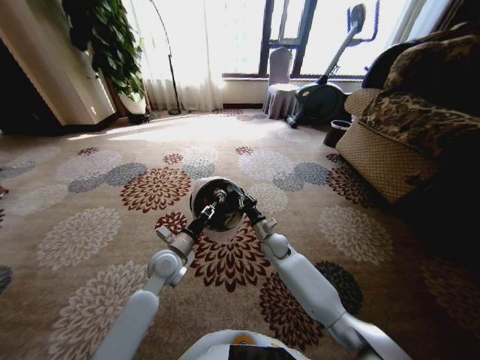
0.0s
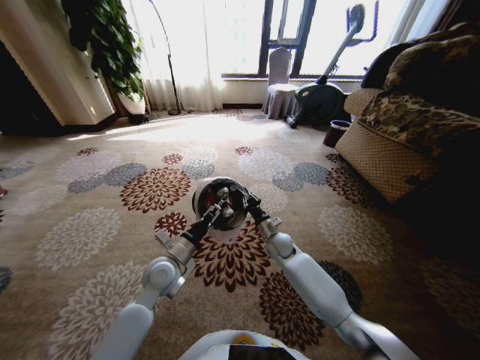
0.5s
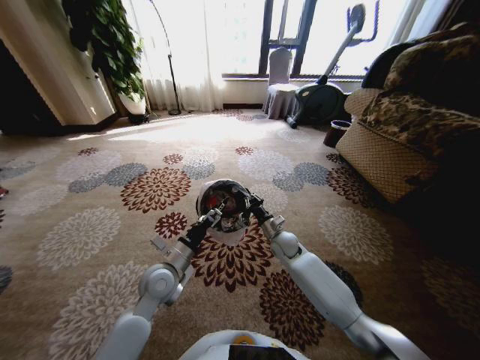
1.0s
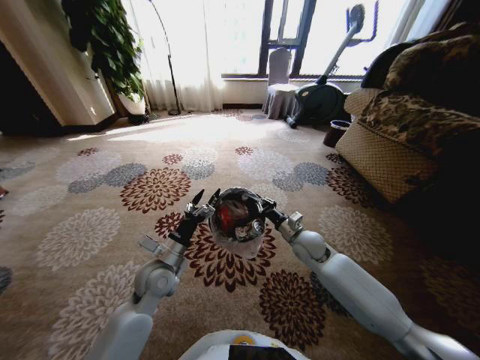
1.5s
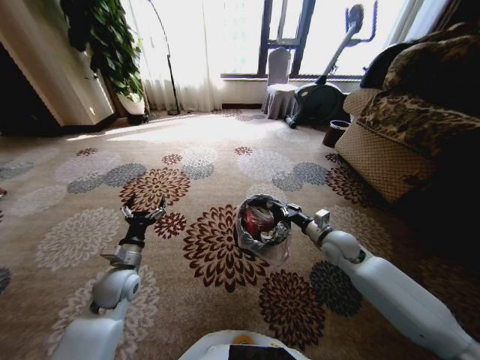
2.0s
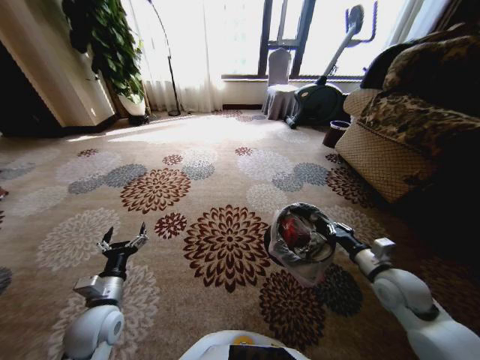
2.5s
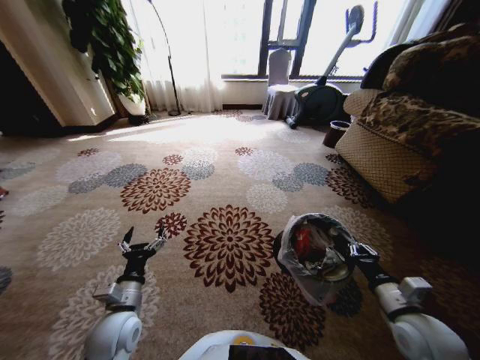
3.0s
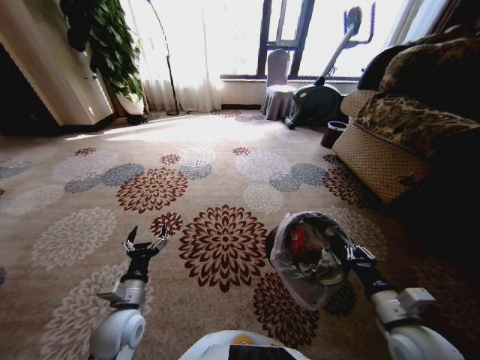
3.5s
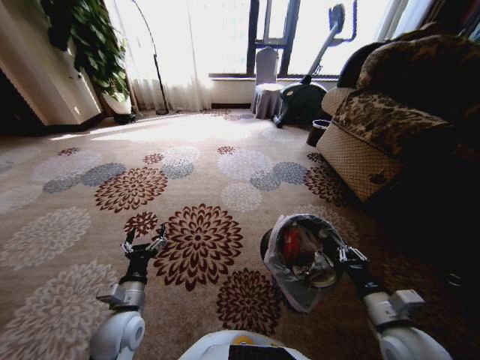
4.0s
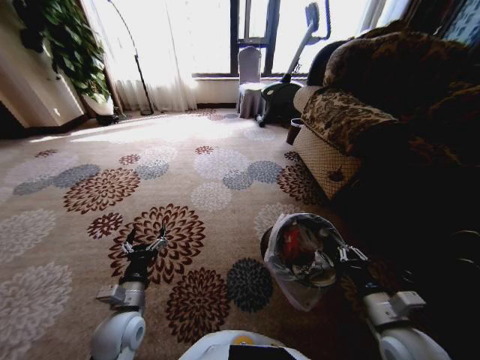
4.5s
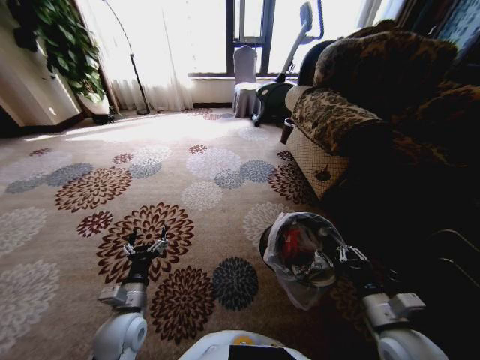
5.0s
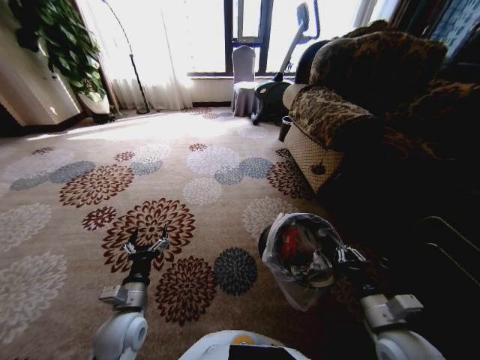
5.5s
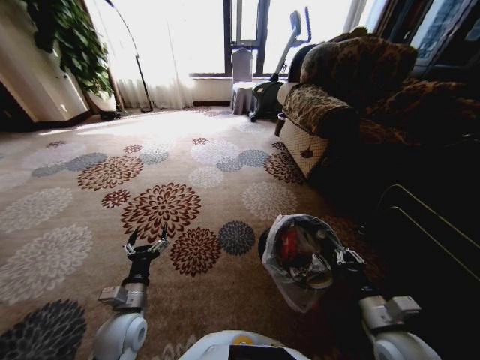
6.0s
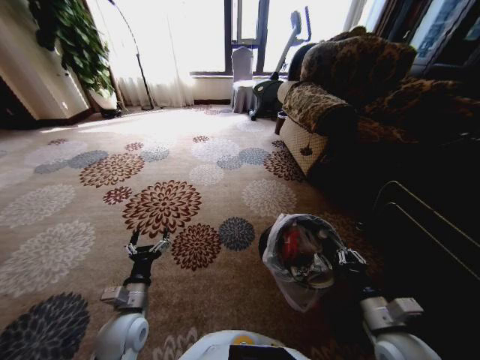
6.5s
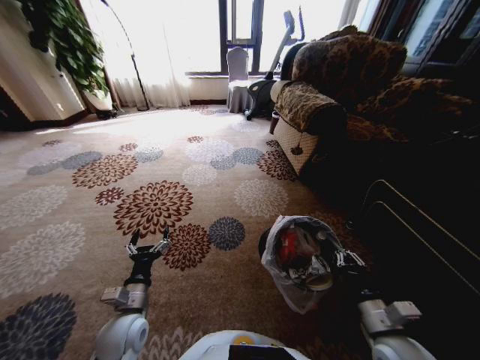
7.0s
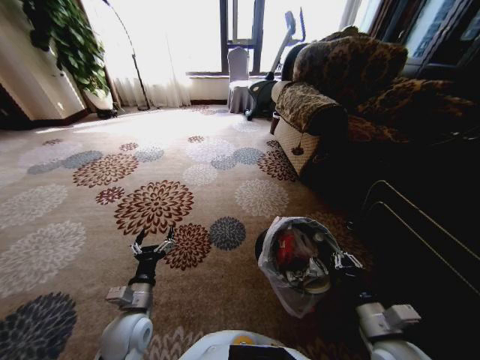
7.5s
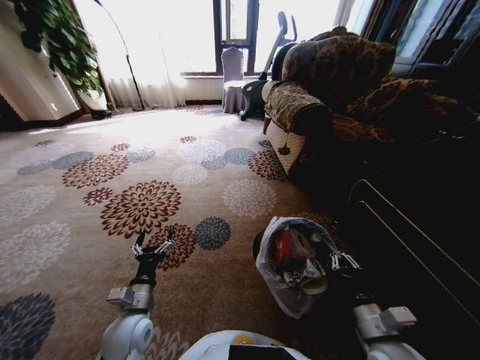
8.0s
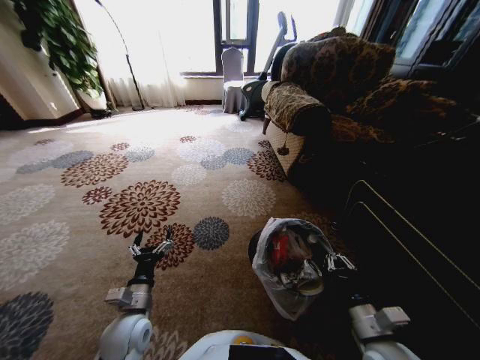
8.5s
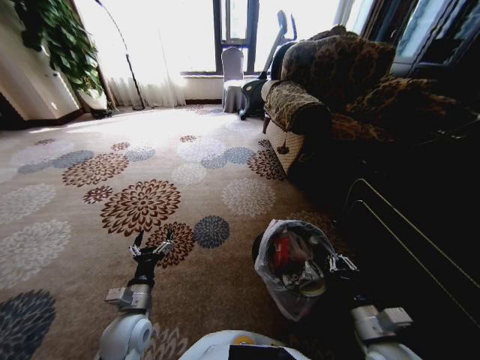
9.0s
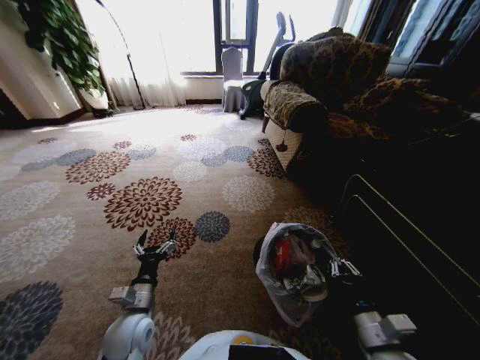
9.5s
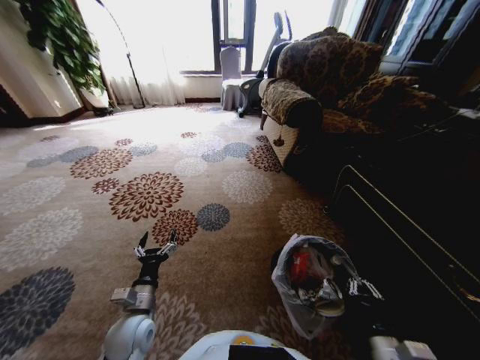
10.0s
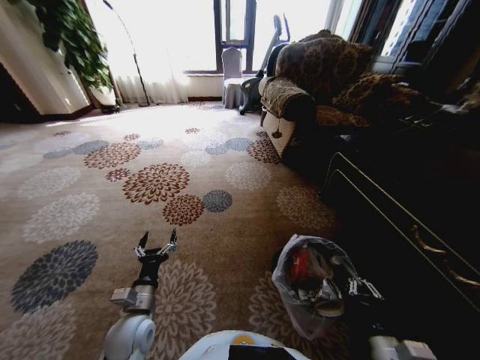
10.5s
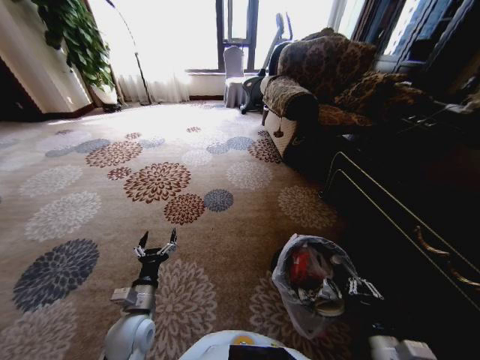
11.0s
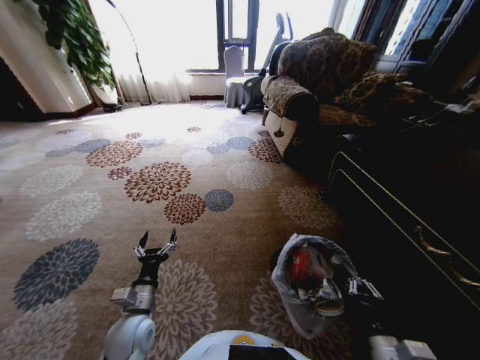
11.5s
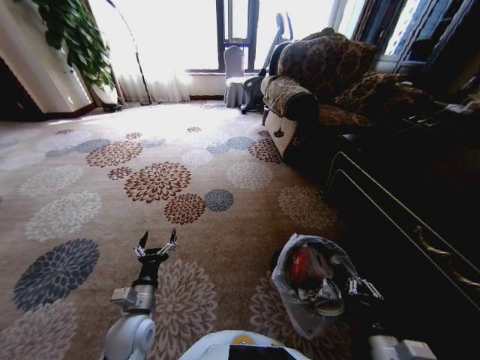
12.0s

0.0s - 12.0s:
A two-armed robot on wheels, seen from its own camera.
Task of the whole recording: Pick up the trash from the ground and place it into the trash bin.
0.0s - 2.0s: The left gripper is displaced to the left and backward by about 15 cm, and opens up. The right gripper goes approximately 20 cm to the right and upward.
2.0s - 4.0s: The right gripper travels backward by about 25 cm; the left gripper is displaced backward and to the right by roughly 10 cm.
8.0s - 10.0s: The right gripper goes some 5 cm backward.

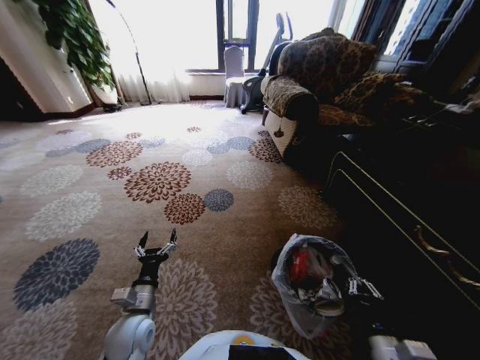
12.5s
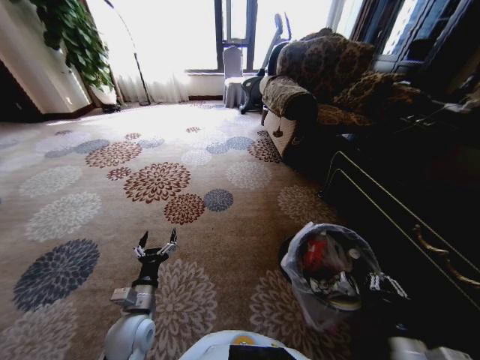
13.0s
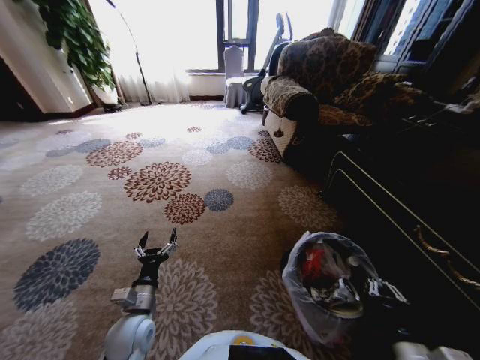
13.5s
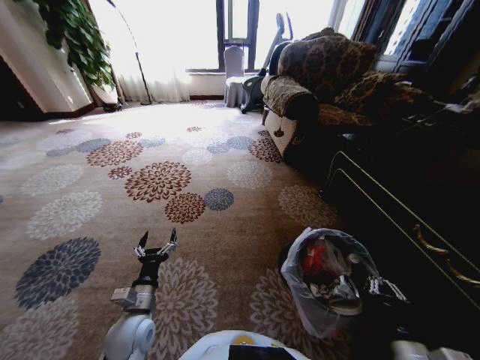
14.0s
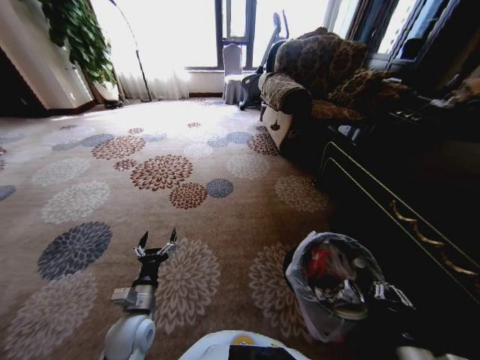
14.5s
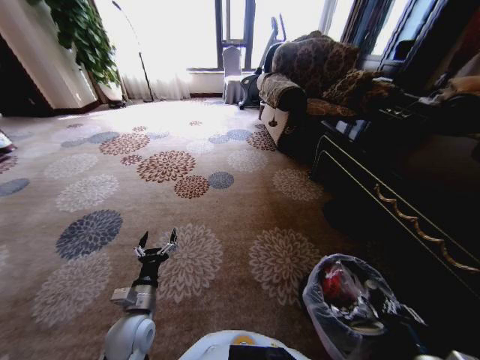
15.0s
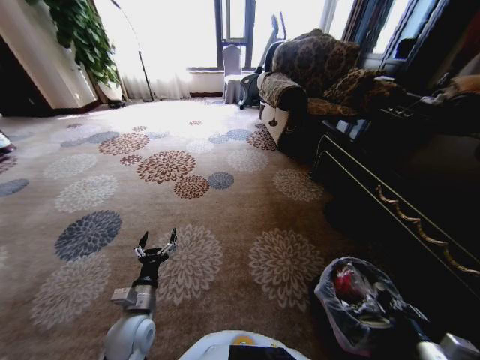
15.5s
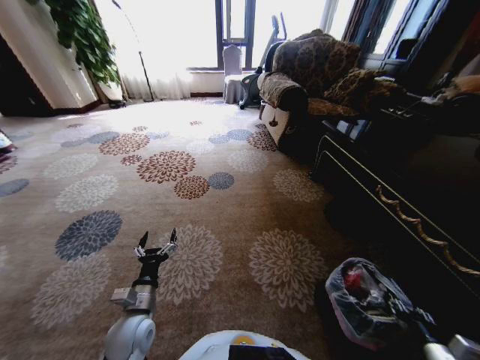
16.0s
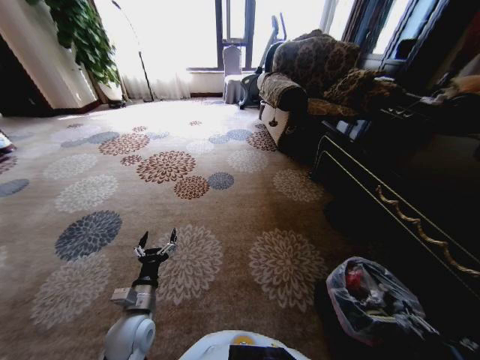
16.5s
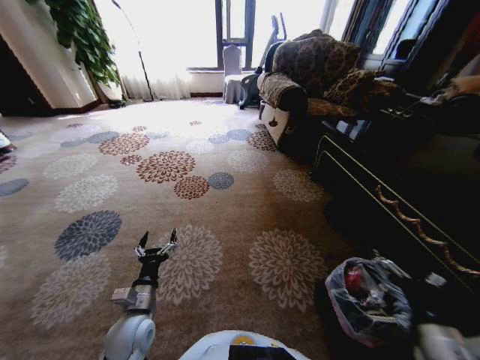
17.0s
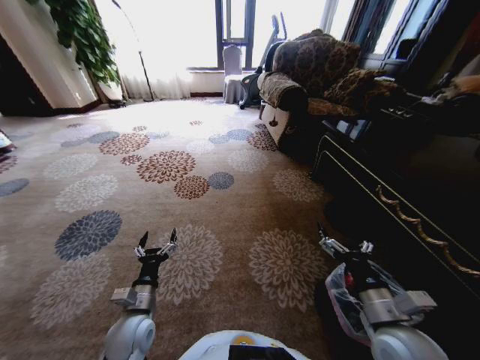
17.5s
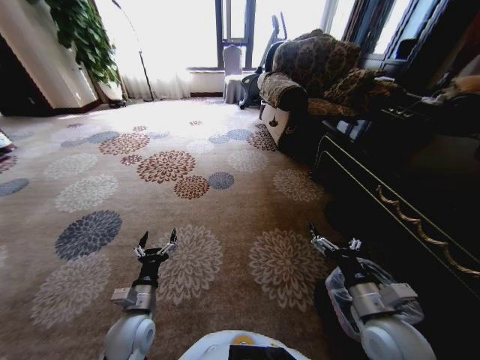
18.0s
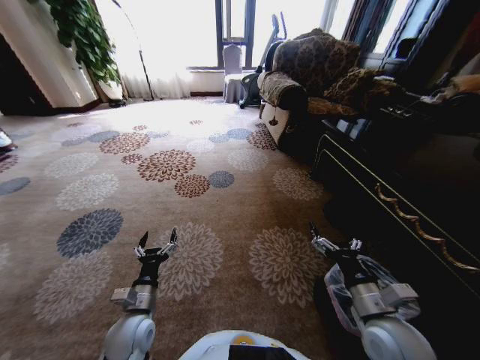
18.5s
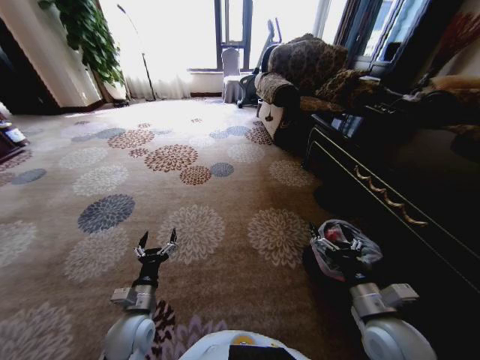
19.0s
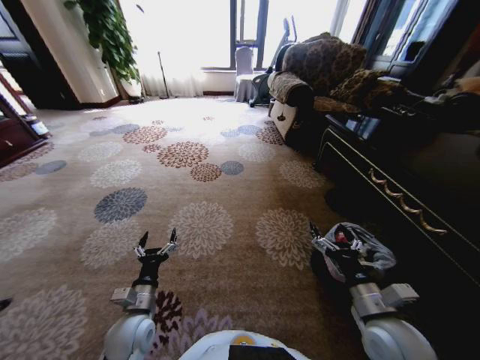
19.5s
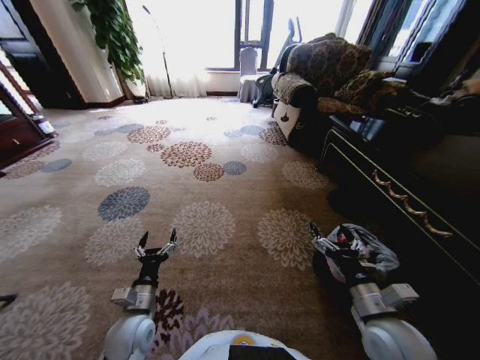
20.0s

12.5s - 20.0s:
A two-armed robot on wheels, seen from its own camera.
Task of the whole recording: Pick up the trash from the ground and place it into the trash bin.
14.5s - 16.5s: The right gripper goes approximately 15 cm to the right, and opens.
16.5s - 18.0s: The right gripper is displaced to the left and forward by about 20 cm.
